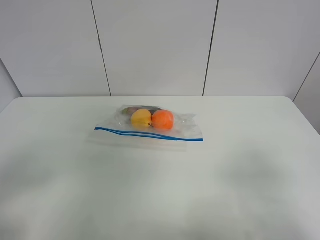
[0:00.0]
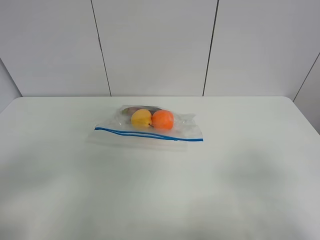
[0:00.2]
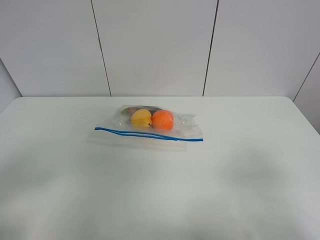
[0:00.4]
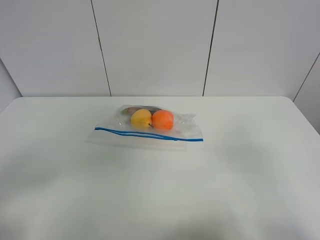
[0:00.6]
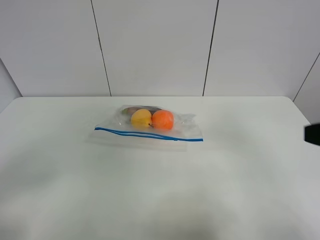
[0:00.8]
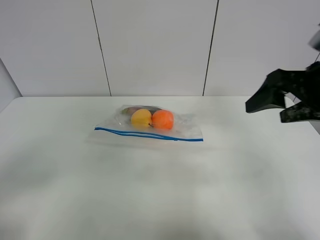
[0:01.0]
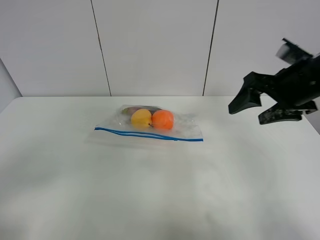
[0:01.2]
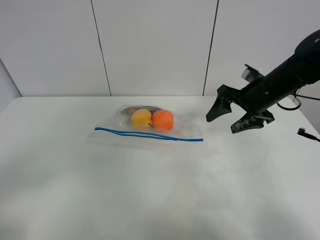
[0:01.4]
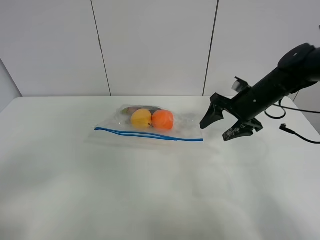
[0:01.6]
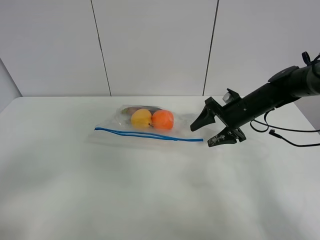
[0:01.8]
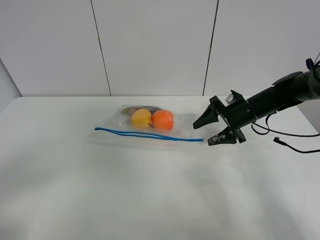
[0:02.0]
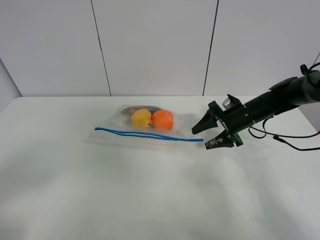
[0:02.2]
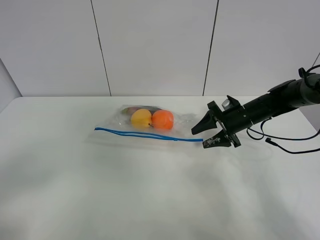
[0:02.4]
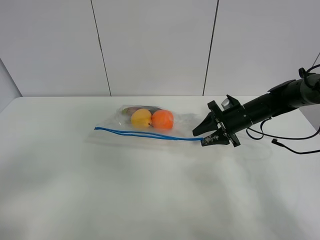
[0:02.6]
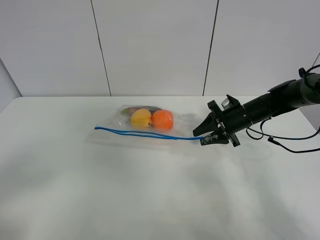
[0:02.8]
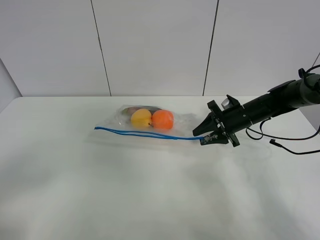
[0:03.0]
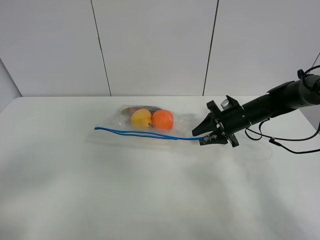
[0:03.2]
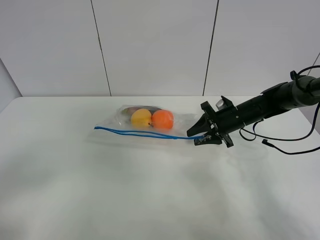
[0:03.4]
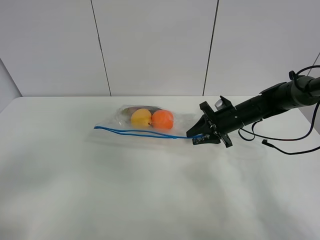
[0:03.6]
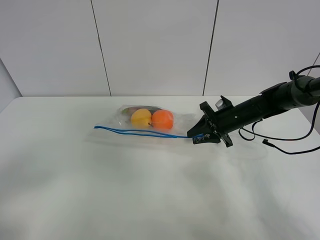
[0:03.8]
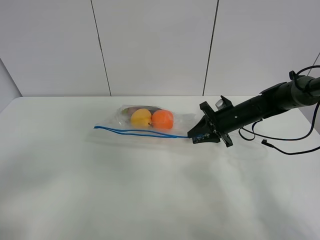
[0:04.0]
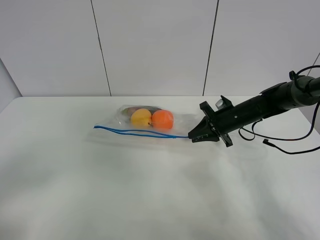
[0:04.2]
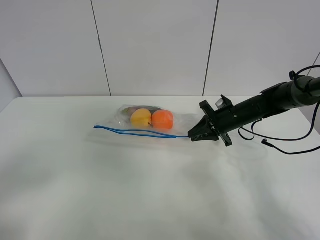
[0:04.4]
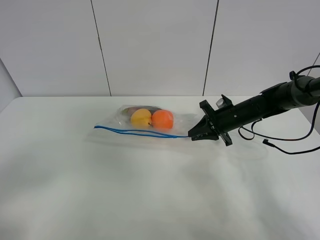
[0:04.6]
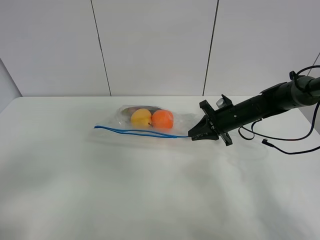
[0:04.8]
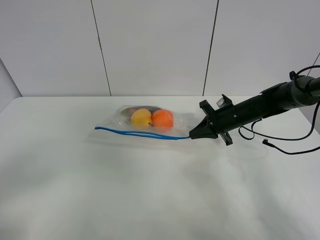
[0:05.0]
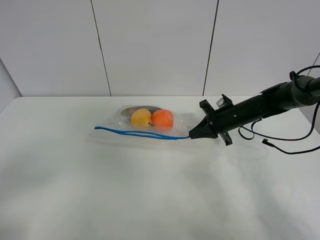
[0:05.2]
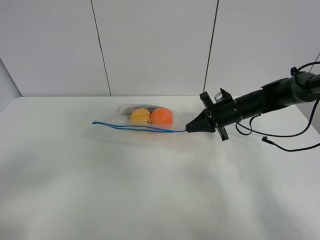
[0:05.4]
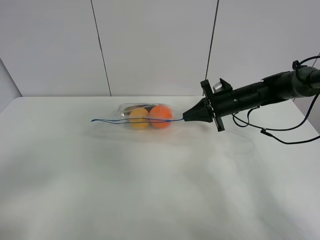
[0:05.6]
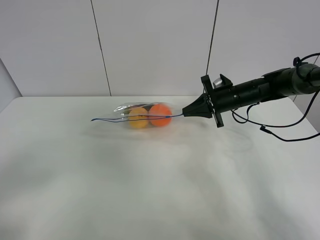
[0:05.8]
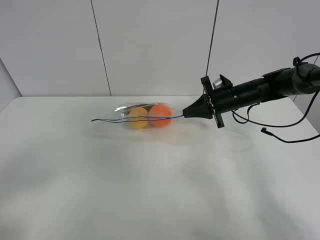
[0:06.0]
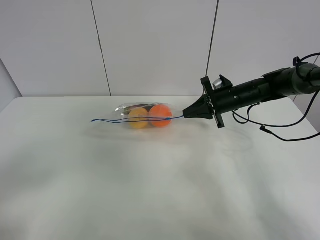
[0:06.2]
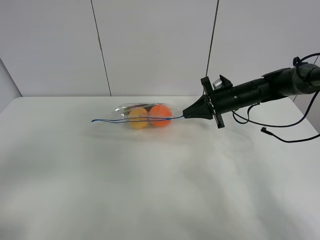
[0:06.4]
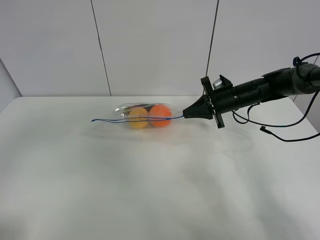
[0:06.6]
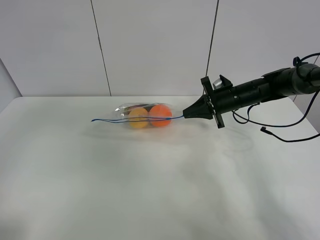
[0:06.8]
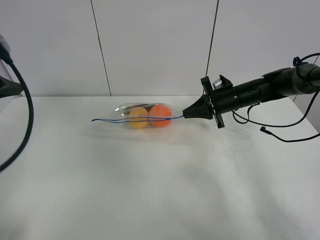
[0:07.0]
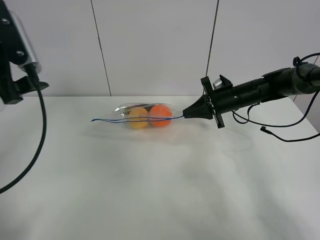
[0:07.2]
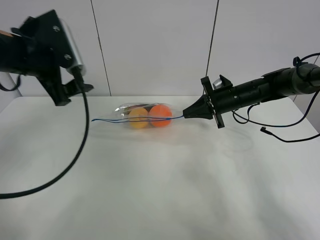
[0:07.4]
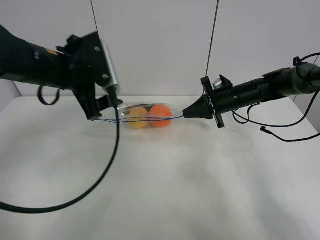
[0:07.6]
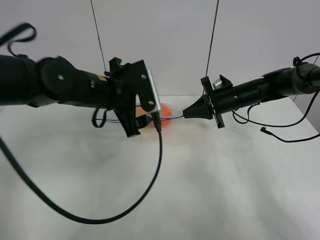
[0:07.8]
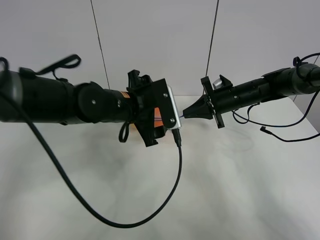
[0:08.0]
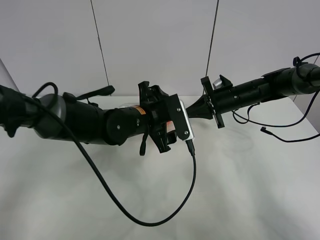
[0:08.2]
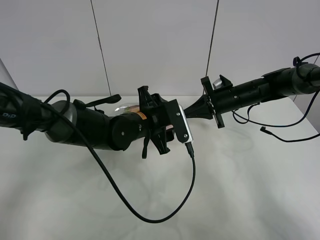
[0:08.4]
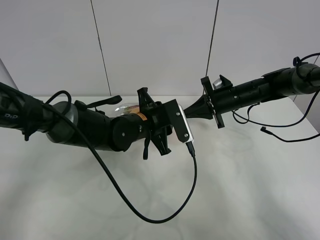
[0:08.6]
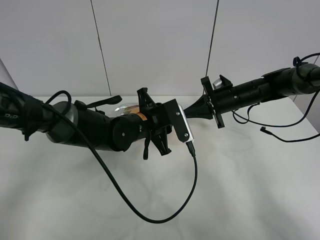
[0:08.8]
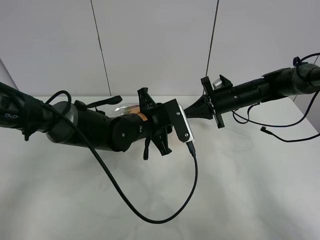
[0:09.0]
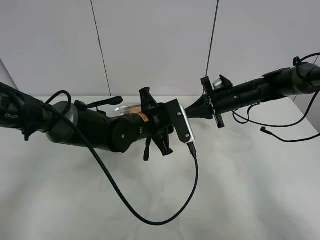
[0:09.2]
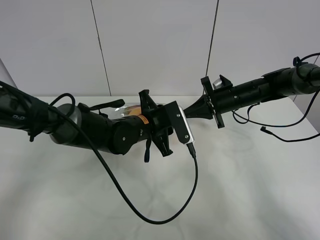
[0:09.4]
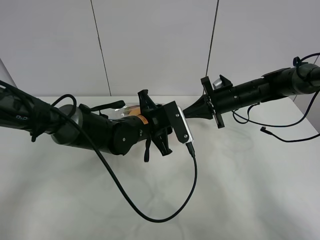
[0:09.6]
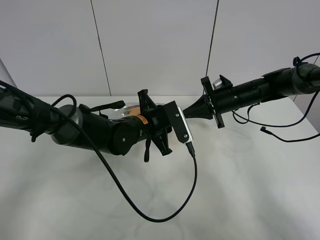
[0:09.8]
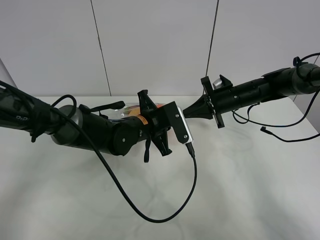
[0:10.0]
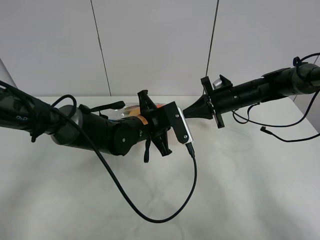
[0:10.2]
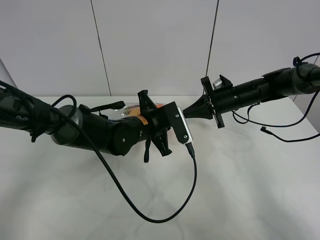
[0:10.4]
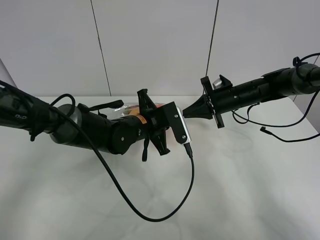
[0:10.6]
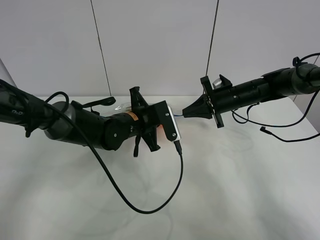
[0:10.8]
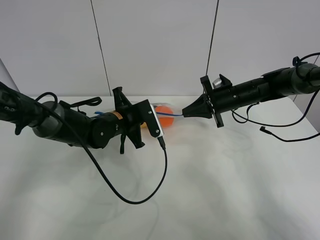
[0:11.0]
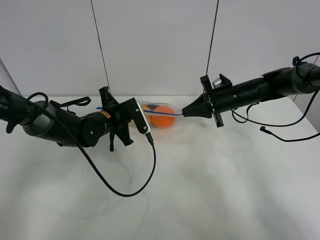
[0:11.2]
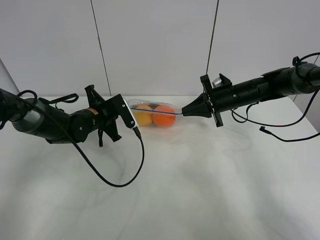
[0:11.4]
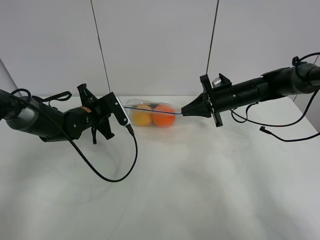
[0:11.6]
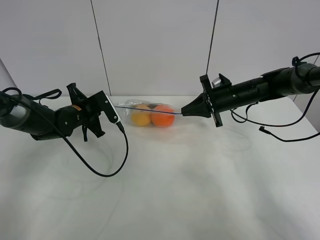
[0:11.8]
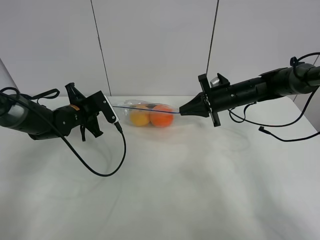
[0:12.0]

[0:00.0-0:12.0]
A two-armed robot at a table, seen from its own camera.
Step, 0.0 to 4.8 s: Grasp the fruit bag with right gripper.
Step, 5.0 to 5.8 s: Lift the fruit bag with your right gripper.
0.0 to 1.6 s: The right gripper shifts about 35 cm forward.
1.6 to 3.0 s: The right gripper goes approximately 5 cm downward, and closes its fingers.
3.0 to 6.0 s: The grippers stay close to where they were, moving slightly.
6.0 to 7.6 s: The left gripper heads forward and to the right, covering about 35 cm.
7.6 to 9.0 s: The left gripper heads downward and to the right, covering roughly 20 cm, and closes.
9.0 to 10.4 s: Neither gripper changes place.
10.4 to 12.0 s: The left gripper travels to the left by approximately 20 cm.

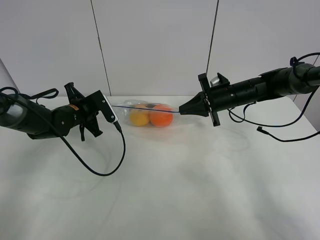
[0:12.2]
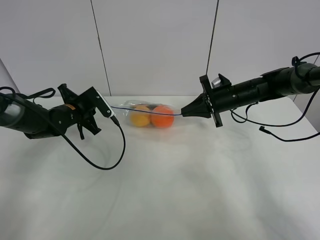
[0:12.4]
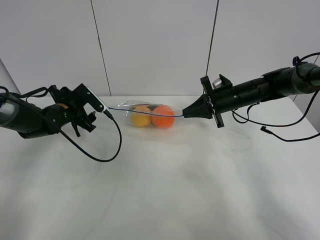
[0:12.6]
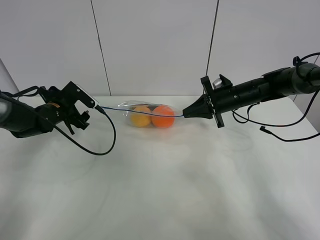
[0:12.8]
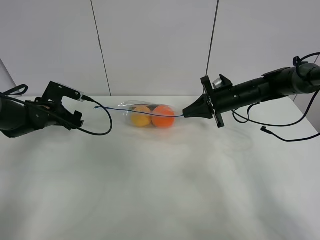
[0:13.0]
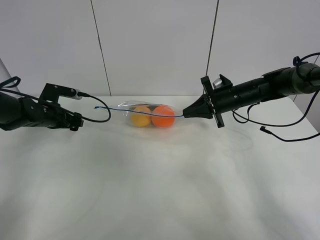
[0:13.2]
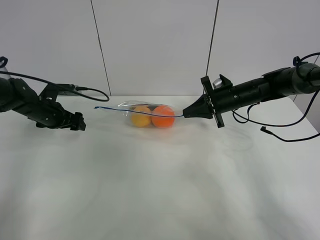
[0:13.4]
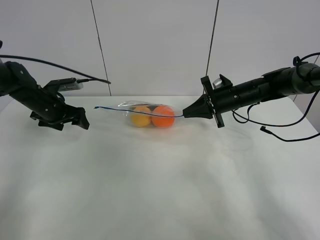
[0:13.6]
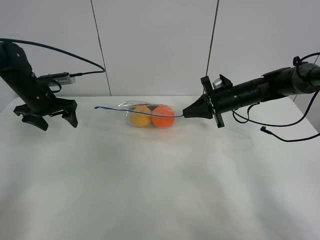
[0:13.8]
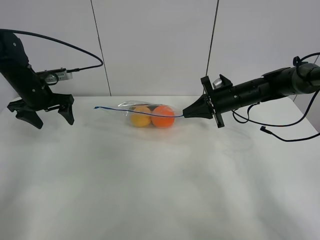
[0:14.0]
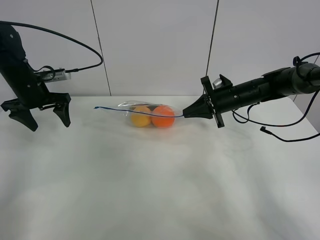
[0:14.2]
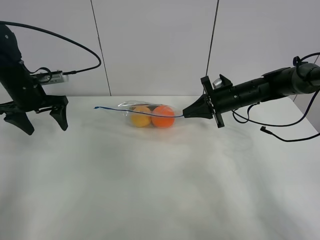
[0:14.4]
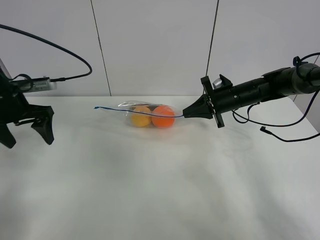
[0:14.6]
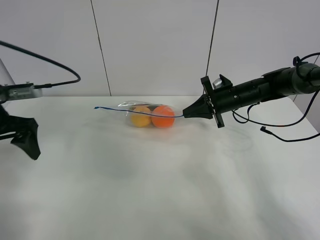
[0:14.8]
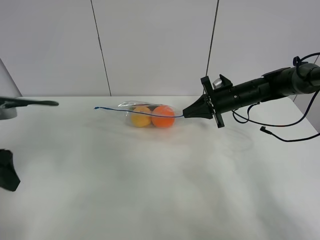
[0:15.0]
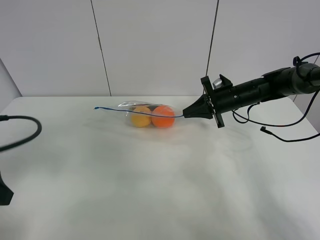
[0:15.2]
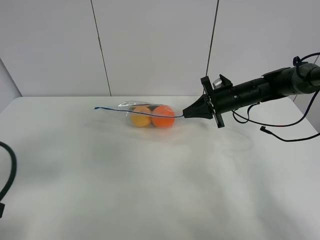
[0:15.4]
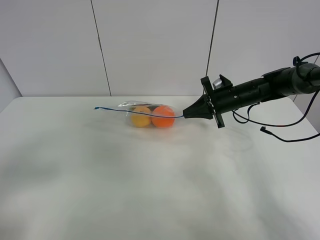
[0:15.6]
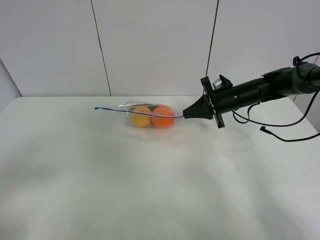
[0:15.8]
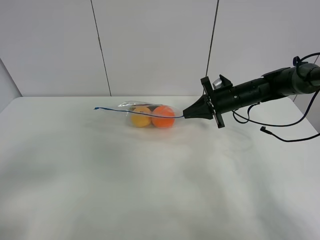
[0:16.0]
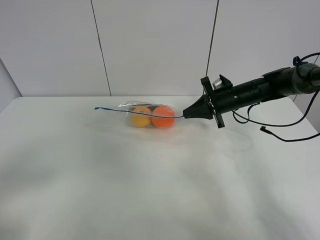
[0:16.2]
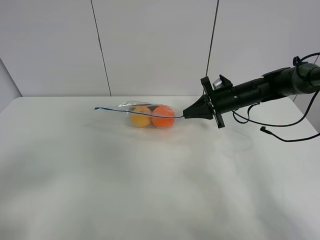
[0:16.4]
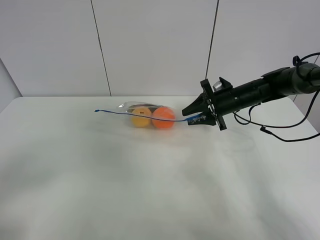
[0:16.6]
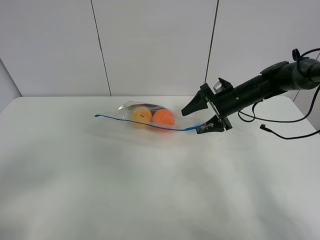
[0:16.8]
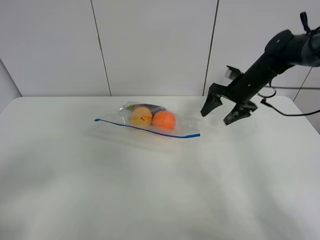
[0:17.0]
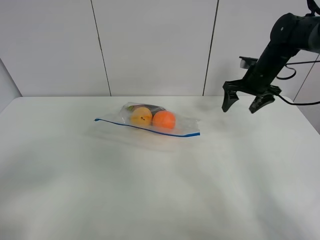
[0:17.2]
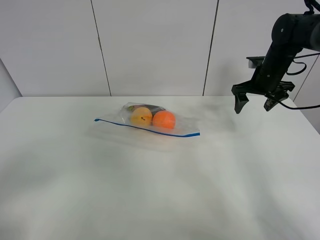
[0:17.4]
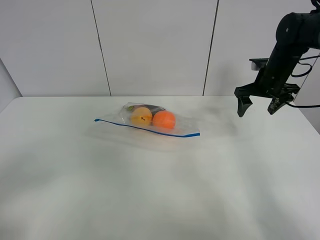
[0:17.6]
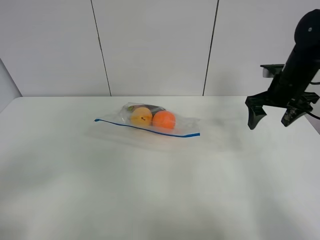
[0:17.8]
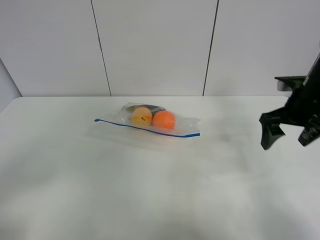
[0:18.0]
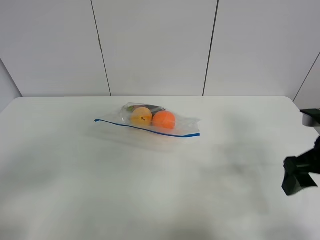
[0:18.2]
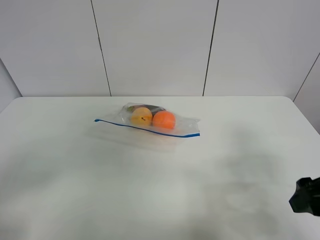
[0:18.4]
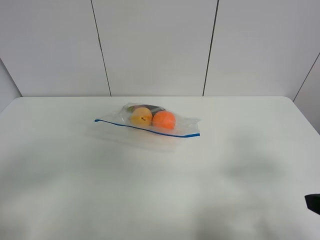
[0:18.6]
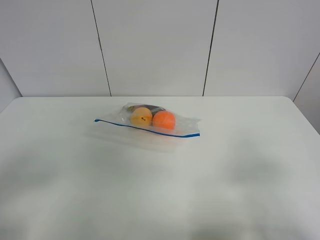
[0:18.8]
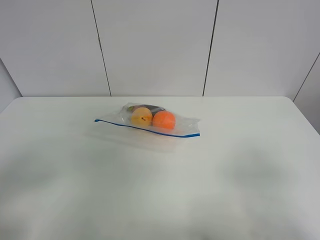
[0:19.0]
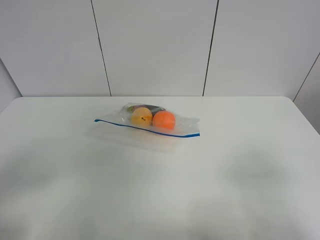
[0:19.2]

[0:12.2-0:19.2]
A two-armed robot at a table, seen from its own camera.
12.2 to 13.6 s: The left gripper heads to the left, covering approximately 10 cm, and opens up.
13.6 to 15.0 s: The left gripper shifts about 25 cm backward and upward.
15.0 to 16.4 s: The left gripper travels backward by about 15 cm.
16.4 to 17.8 s: The right gripper shifts some 15 cm upward, to the right and backward, and opens.
17.8 to 19.2 s: The right gripper is displaced backward by roughly 35 cm.

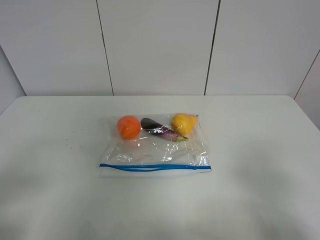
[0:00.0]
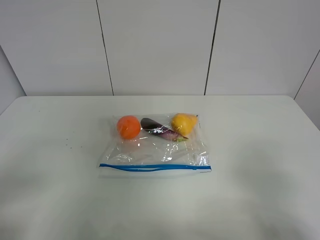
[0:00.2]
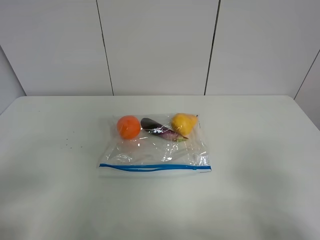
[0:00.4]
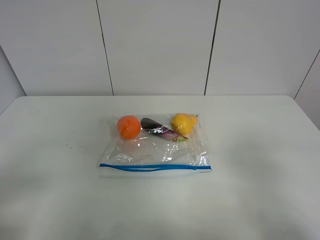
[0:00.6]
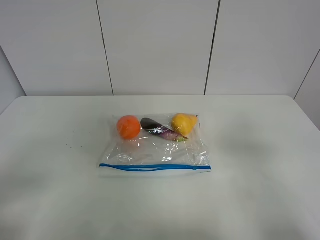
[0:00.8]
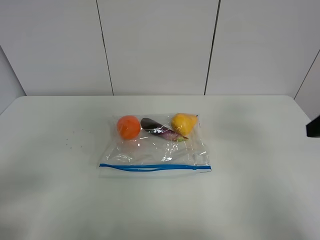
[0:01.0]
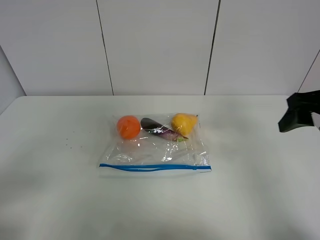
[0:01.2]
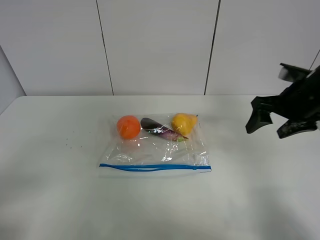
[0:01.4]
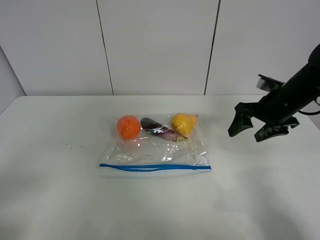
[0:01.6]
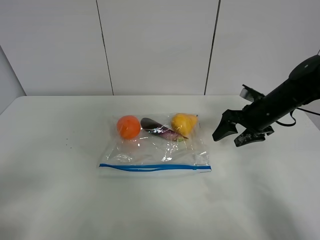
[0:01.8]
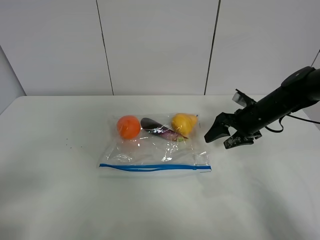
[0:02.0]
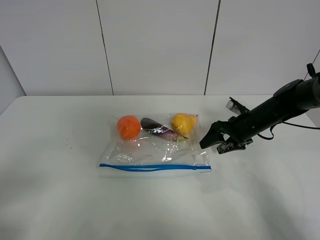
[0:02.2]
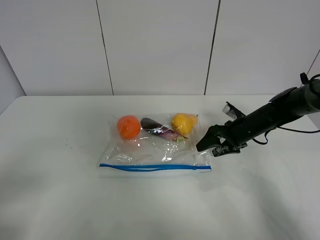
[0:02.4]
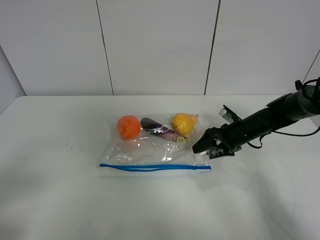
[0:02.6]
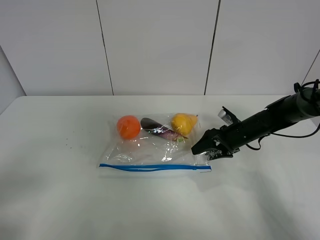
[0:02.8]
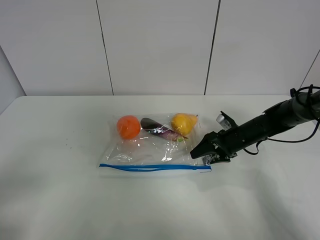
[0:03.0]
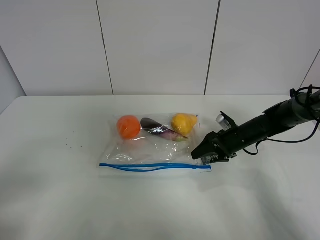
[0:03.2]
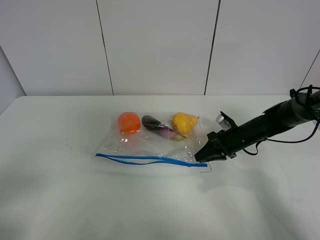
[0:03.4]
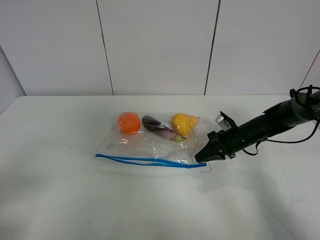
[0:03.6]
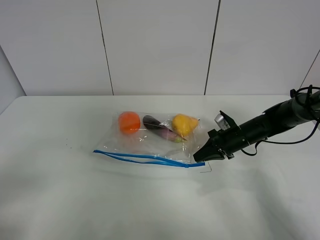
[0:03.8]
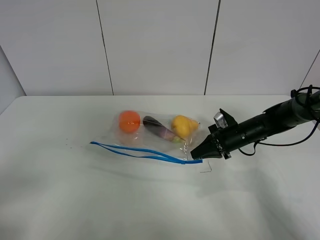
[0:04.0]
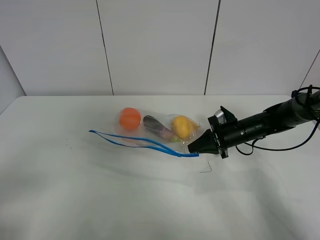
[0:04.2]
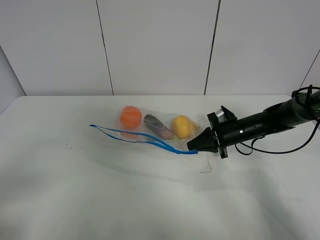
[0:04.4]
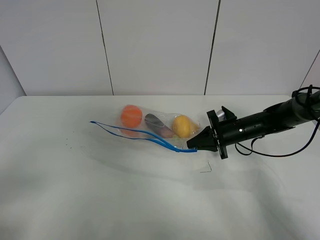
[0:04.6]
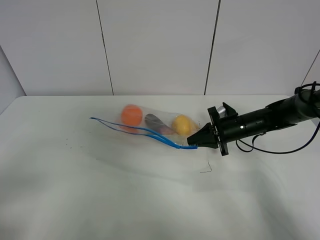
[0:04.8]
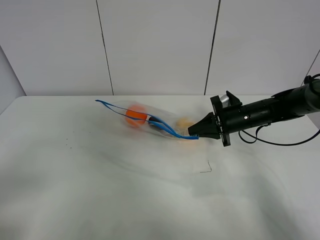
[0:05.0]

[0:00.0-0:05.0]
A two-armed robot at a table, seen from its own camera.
Step, 0.0 to 3.4 s: Grasp the fruit bag with right gripper.
0.0 to 1.6 s: The right gripper travels forward by some 35 cm.
1.6 to 3.4 s: The right gripper goes approximately 15 cm downward, and closes.
3.4 to 5.0 s: The right gripper is displaced upward by approximately 5 cm.
